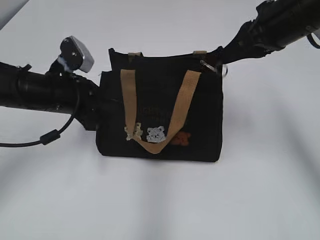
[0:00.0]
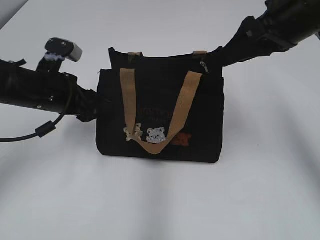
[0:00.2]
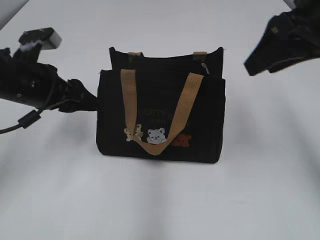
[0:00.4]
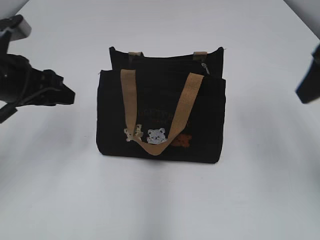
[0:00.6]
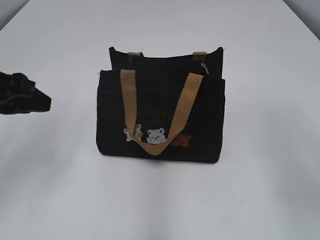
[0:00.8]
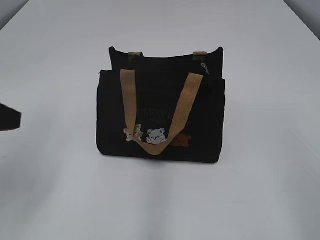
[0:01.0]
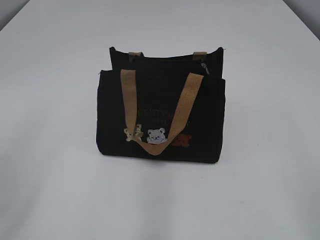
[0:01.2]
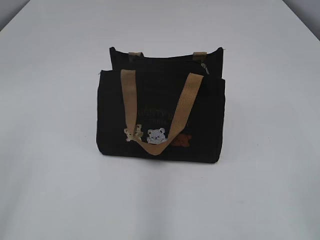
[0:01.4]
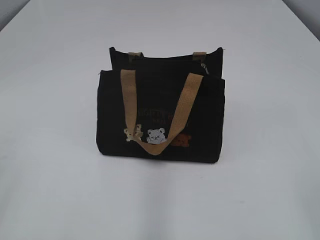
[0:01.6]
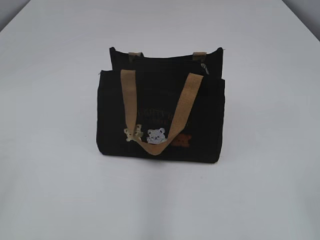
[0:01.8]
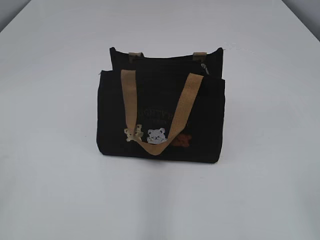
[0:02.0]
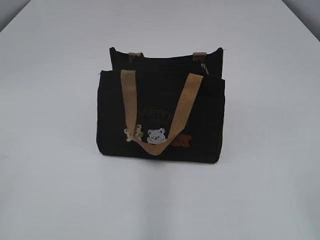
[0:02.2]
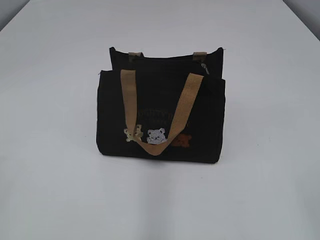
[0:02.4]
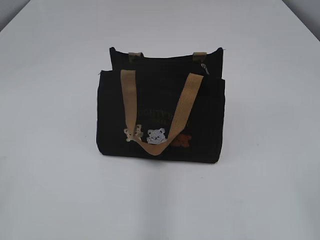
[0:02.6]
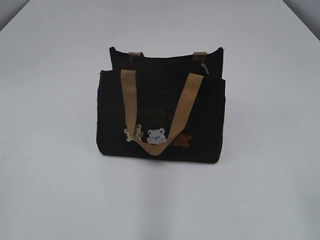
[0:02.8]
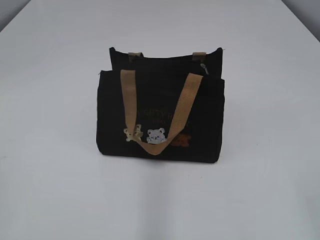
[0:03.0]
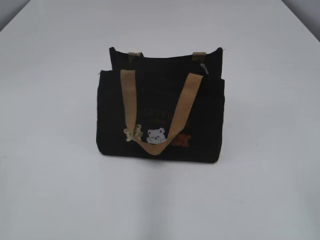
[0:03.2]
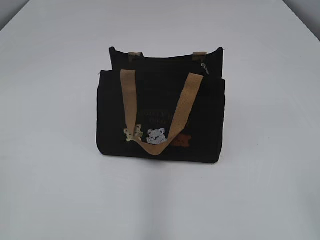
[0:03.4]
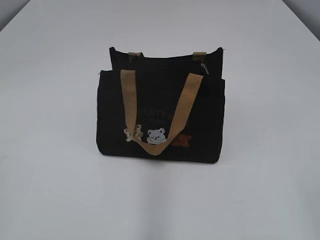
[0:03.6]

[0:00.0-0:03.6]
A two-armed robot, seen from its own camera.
Step, 0:00.2 to 0:00.4: Hold the bag with your left hand.
0:00.0 to 0:01.8: The left gripper heads backward, upward and to the left, covering some 35 cm, and opens its fingers, while the right gripper heads backward, covering about 35 cm, and opens.

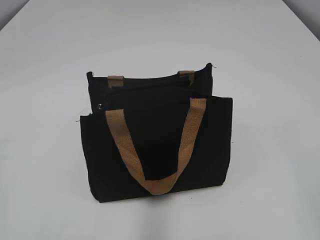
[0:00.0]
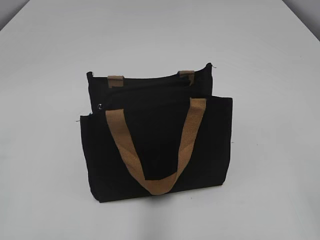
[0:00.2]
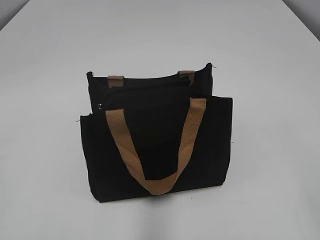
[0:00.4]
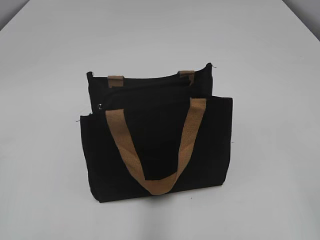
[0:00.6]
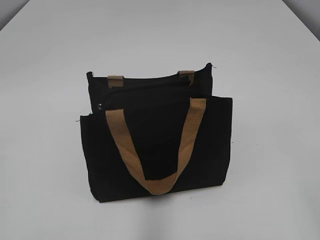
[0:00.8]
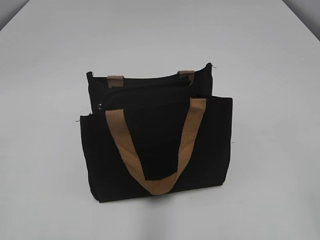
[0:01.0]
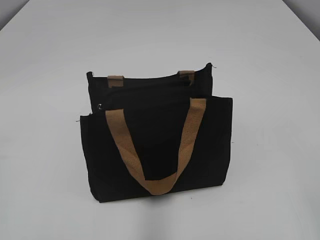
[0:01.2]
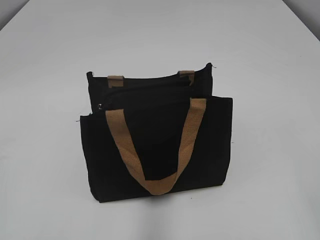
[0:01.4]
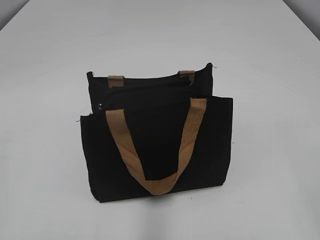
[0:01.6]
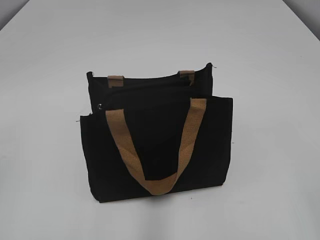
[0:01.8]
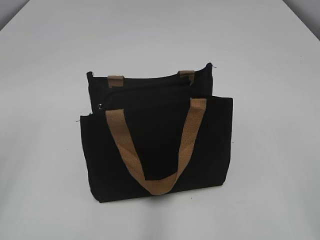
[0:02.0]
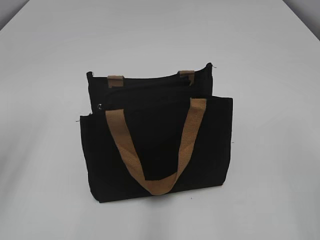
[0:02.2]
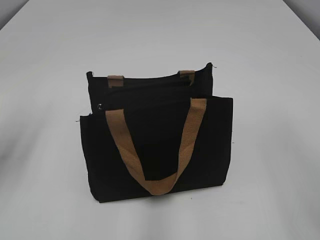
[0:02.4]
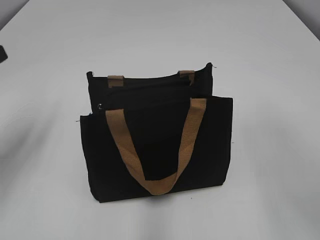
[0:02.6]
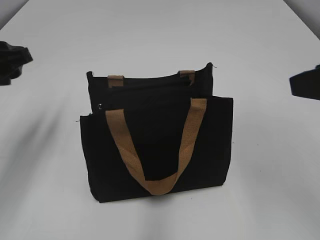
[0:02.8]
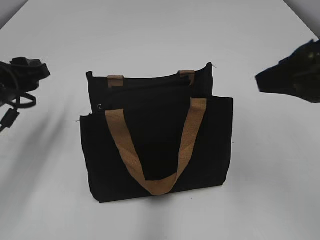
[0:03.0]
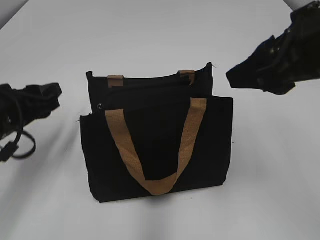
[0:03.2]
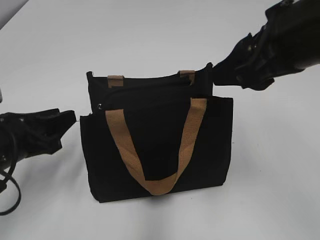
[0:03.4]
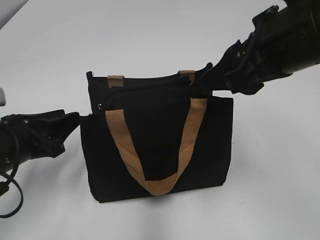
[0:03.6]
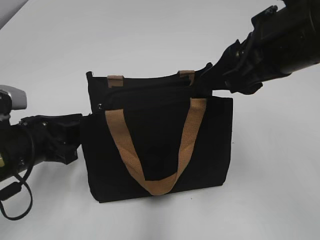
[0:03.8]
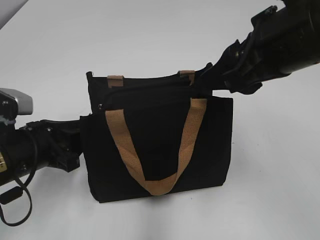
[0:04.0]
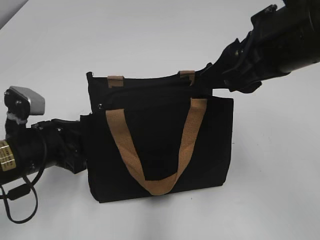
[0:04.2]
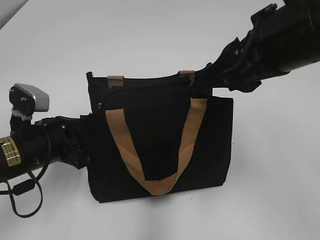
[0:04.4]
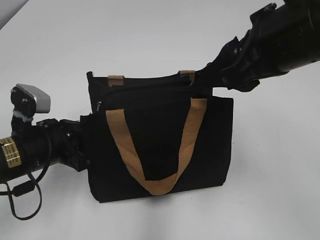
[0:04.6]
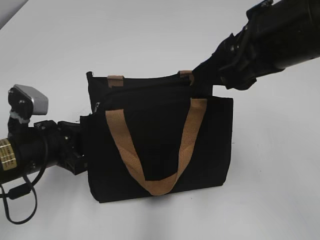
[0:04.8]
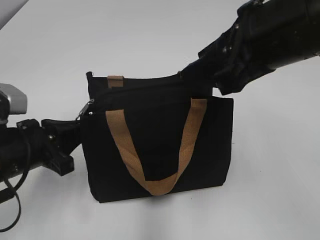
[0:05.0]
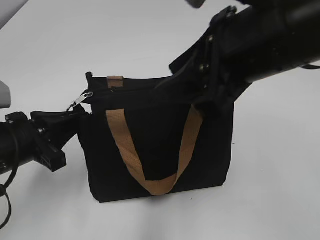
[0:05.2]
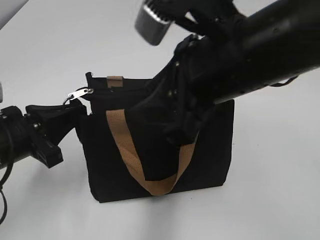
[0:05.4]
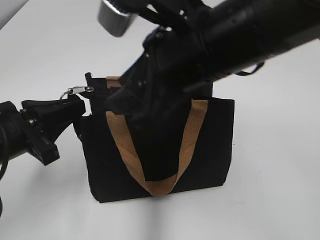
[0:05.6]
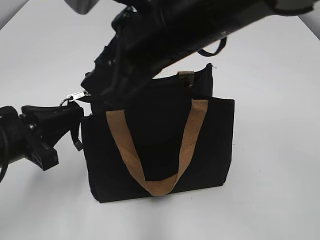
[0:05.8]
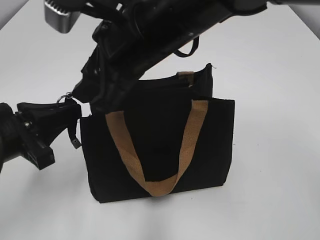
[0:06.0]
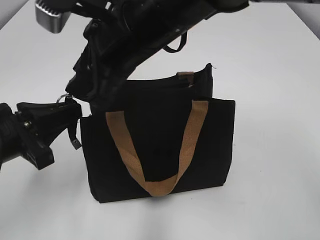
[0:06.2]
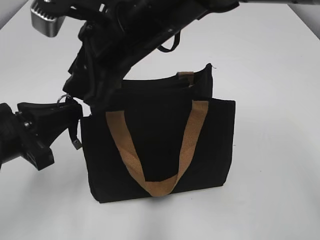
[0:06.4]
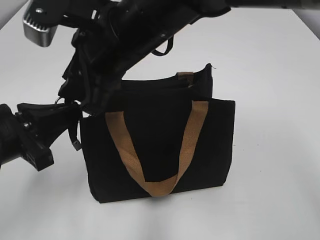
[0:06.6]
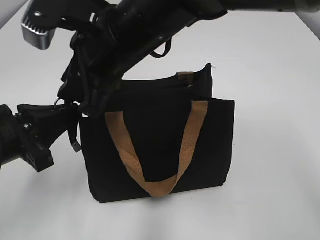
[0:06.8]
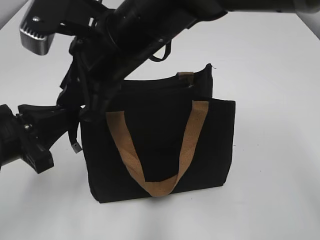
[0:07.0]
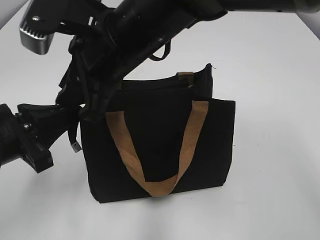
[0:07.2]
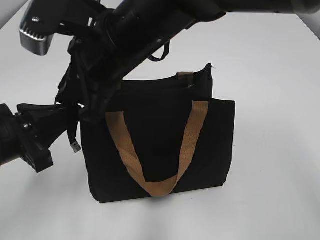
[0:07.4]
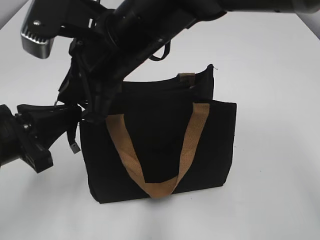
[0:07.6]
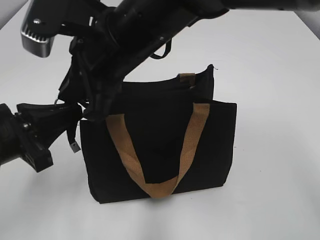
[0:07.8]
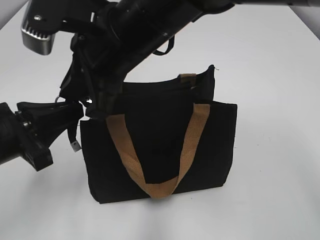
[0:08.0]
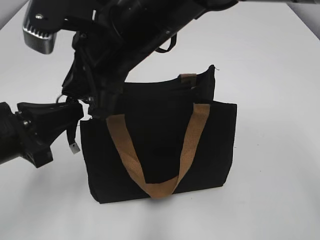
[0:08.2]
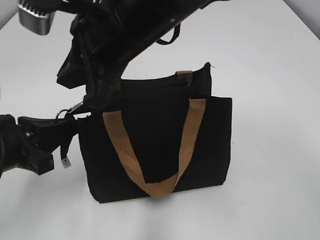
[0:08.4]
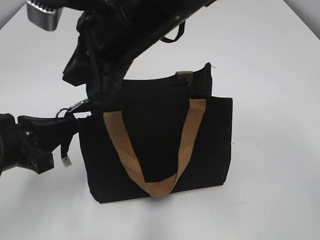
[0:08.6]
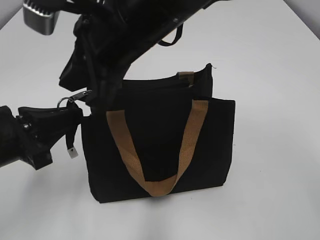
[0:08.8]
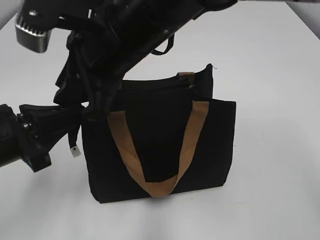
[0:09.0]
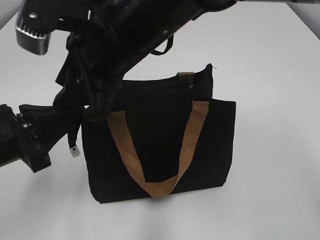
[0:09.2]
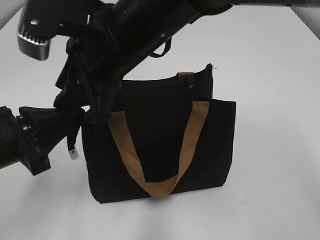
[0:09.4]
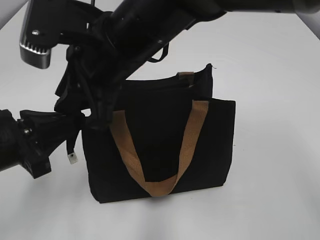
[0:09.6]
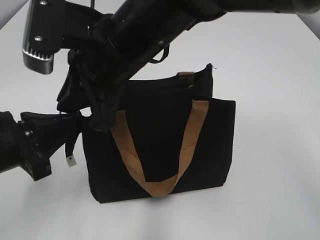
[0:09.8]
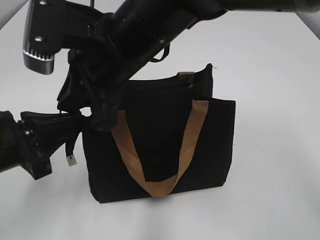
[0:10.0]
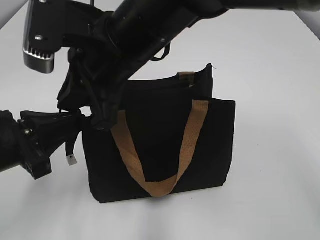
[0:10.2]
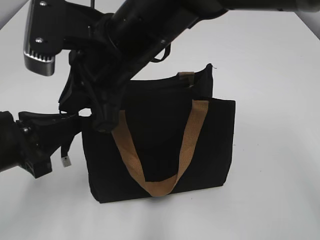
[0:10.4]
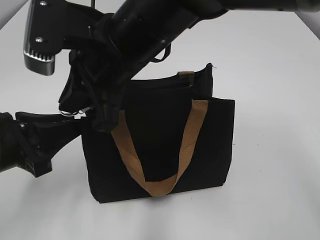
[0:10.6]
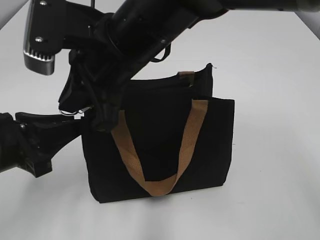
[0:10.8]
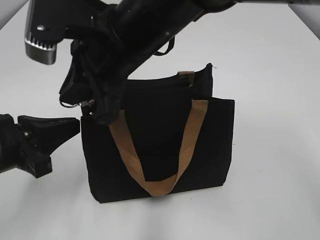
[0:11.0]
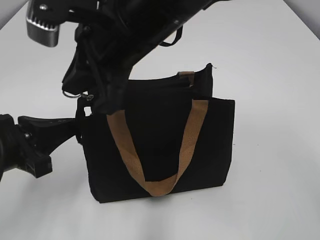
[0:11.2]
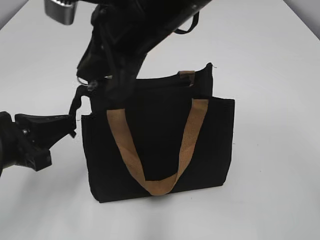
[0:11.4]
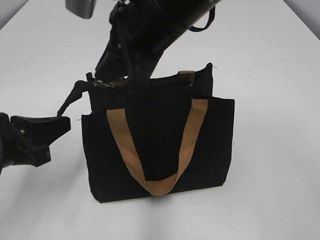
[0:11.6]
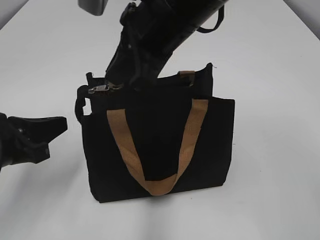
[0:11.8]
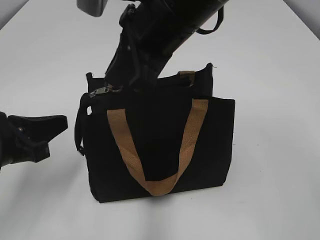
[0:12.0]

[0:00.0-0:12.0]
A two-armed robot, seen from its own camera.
0:01.6 to 0:03.0: Both grippers move forward, roughly 25 cm.
0:03.0 to 0:04.4: The left gripper travels downward and to the right by roughly 10 cm; the right gripper goes about 5 cm to the left.
0:04.4 to 0:06.0: The right gripper heads to the left, covering about 15 cm, while the left gripper goes approximately 5 cm upward, and closes up.
0:06.0 to 0:07.6: The right gripper closes.
0:07.6 to 0:10.4: There are only small adjustments of the grippers.
0:10.4 to 0:12.0: The right gripper is displaced to the right by roughly 5 cm, while the left gripper opens, then closes again.

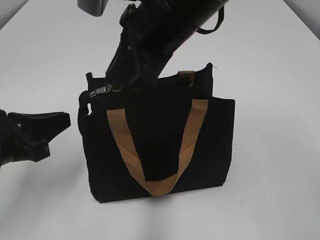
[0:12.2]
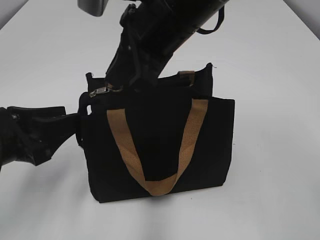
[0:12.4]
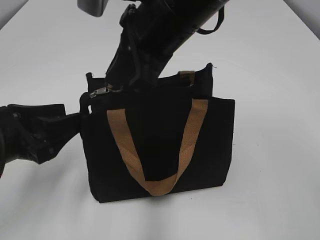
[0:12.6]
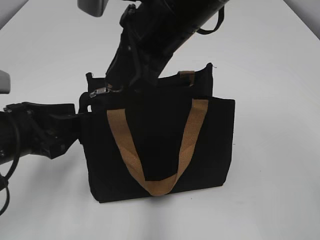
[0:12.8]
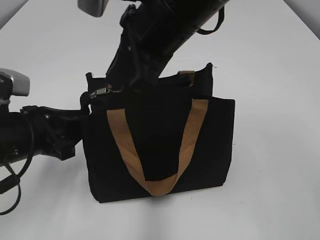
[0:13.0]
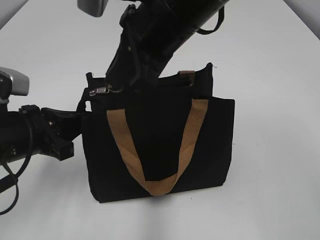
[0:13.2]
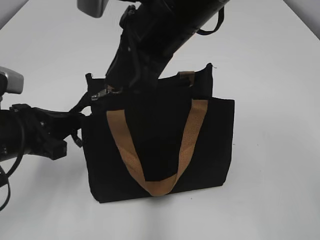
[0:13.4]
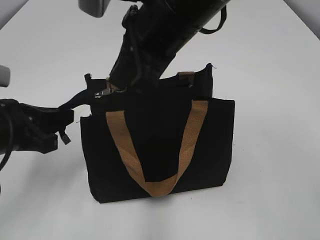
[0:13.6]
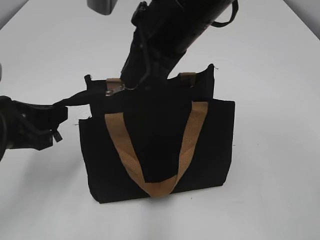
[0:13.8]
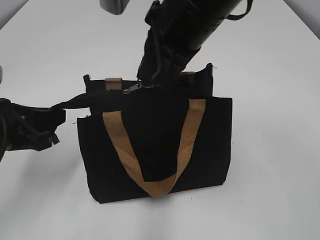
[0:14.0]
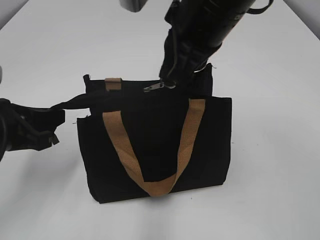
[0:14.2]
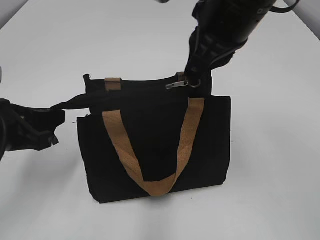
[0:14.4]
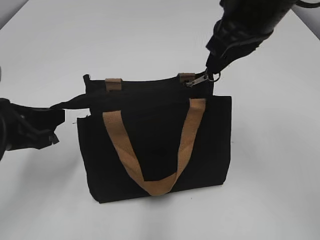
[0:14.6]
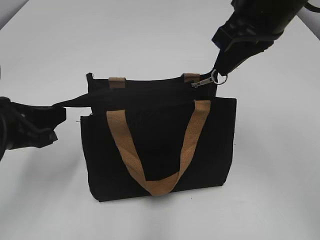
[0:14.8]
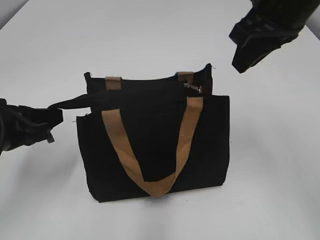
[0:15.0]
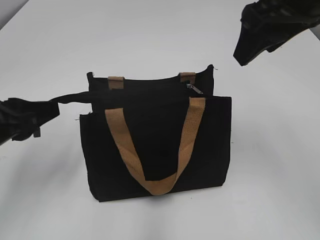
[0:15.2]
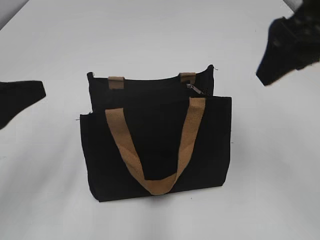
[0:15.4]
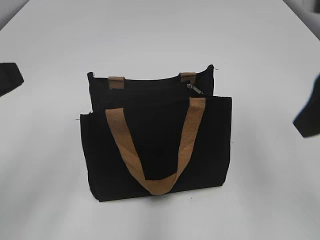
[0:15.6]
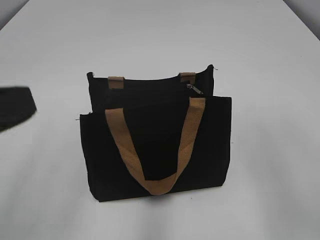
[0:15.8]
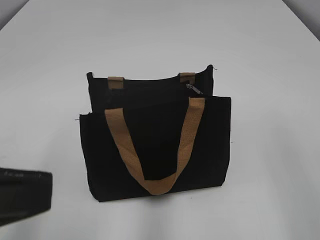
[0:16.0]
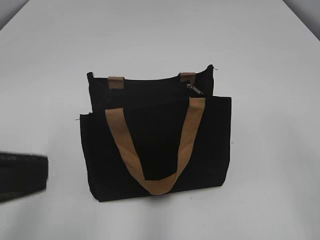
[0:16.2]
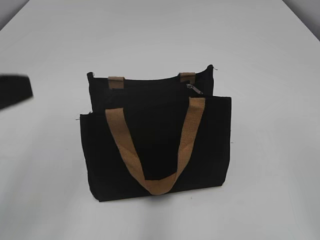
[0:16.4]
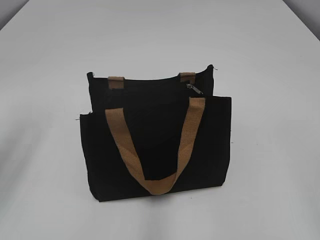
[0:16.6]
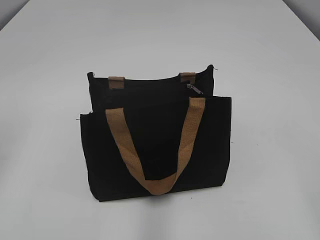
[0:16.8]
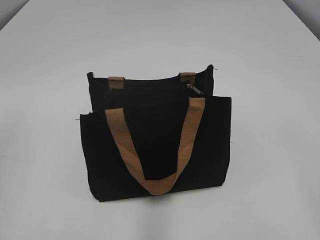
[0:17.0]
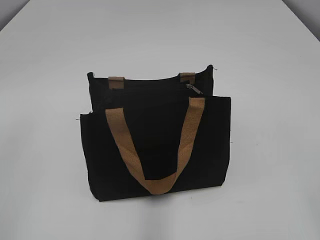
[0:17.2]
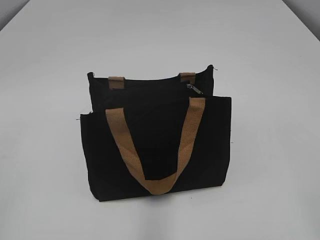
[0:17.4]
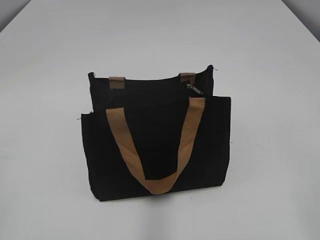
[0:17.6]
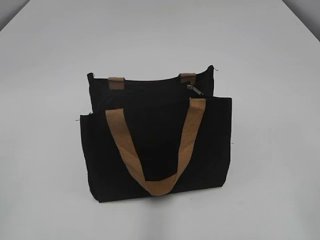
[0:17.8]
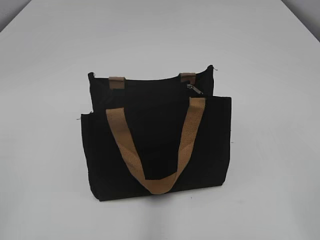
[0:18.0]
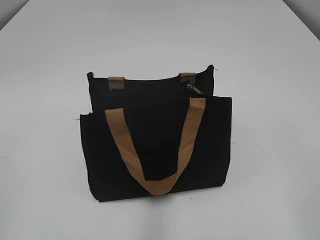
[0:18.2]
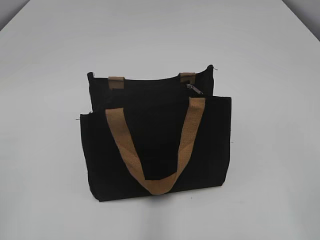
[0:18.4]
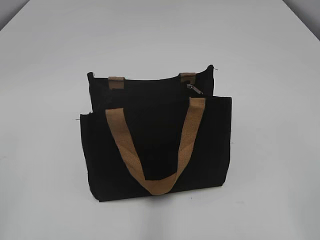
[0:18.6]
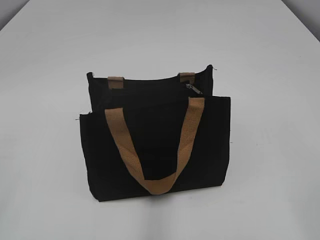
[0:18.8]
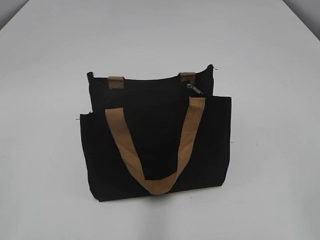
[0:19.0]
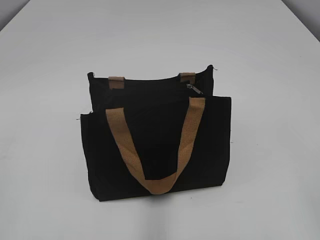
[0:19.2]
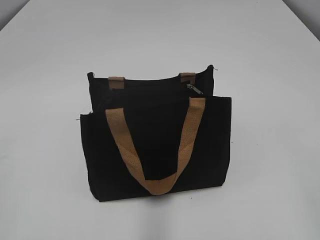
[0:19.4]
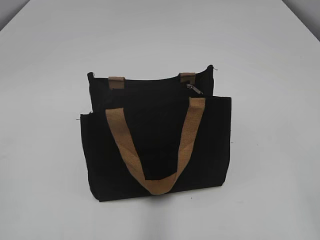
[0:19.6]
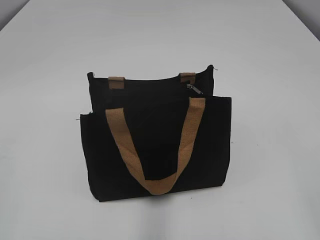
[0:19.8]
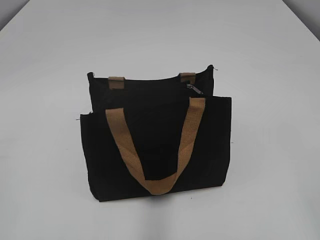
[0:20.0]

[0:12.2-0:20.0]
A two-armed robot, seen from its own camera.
Step, 0:12.2 to 0:14.8: Zip up the bag with your right hand.
Step, 0:15.0 to 0:15.2: Grab the zipper with your left hand.
0:12.2 to 0:13.8: The left gripper opens, then closes once more.
0:13.8 to 0:15.4: The left gripper ends up approximately 5 cm from where it was, and opens. Meanwhile the right gripper travels to the right by approximately 15 cm, and opens up.
0:15.4 to 0:16.8: The left gripper travels to the left and upward by roughly 10 cm. The right gripper is displaced backward and to the right by roughly 30 cm.
